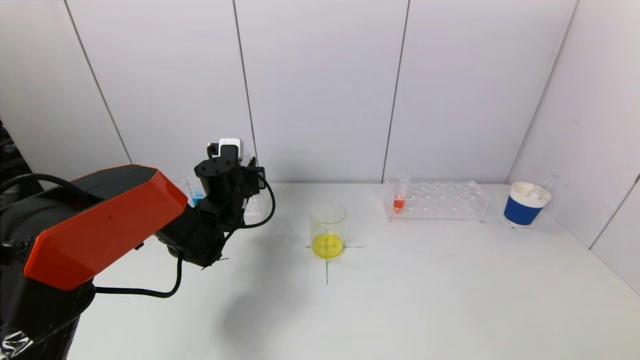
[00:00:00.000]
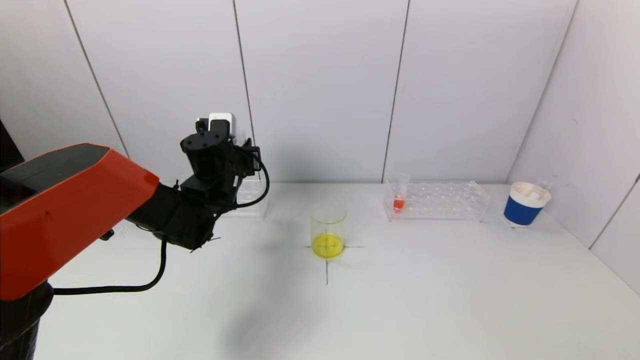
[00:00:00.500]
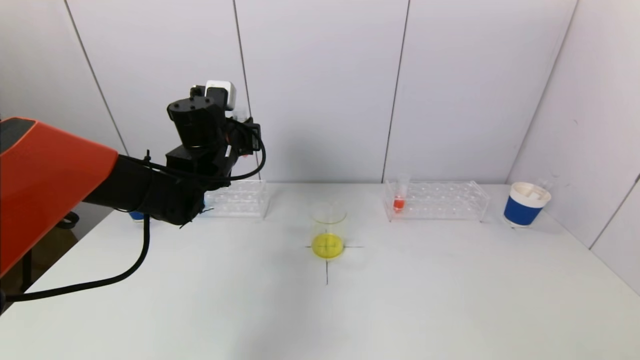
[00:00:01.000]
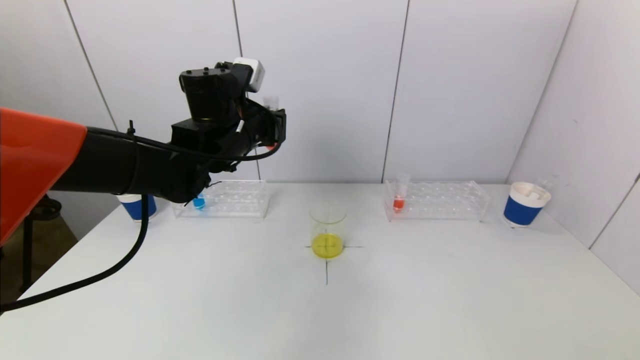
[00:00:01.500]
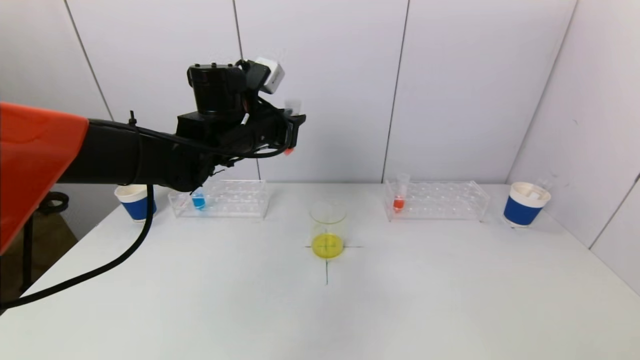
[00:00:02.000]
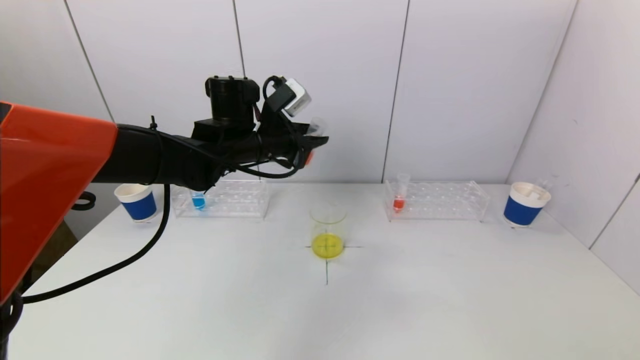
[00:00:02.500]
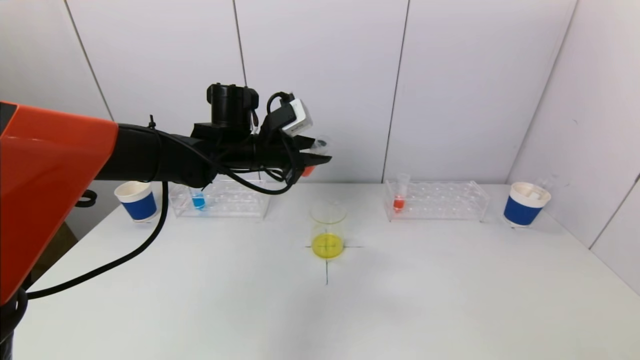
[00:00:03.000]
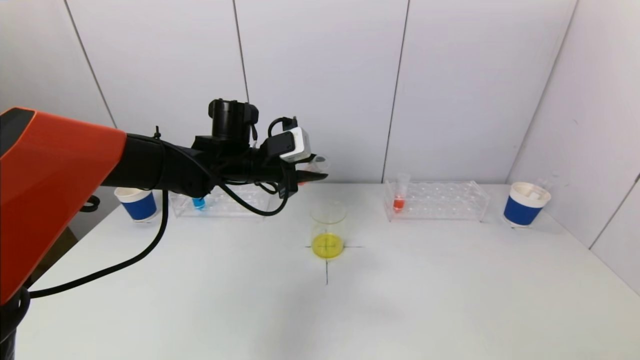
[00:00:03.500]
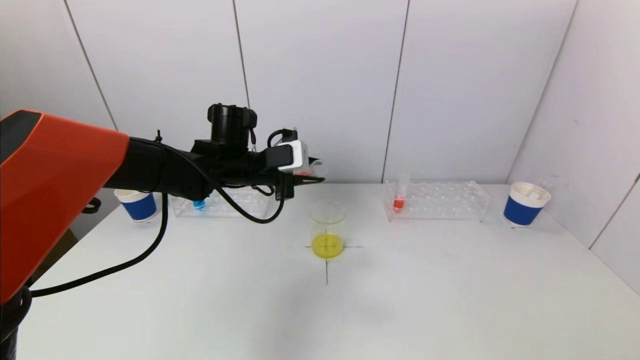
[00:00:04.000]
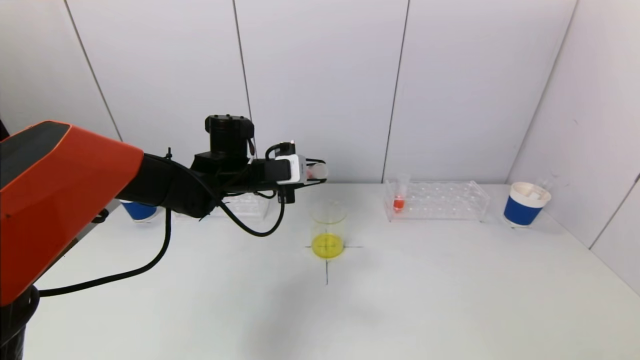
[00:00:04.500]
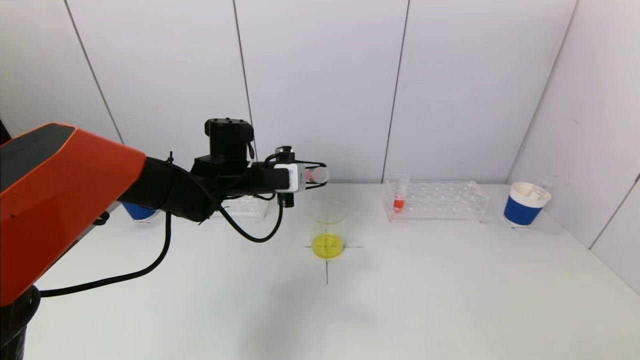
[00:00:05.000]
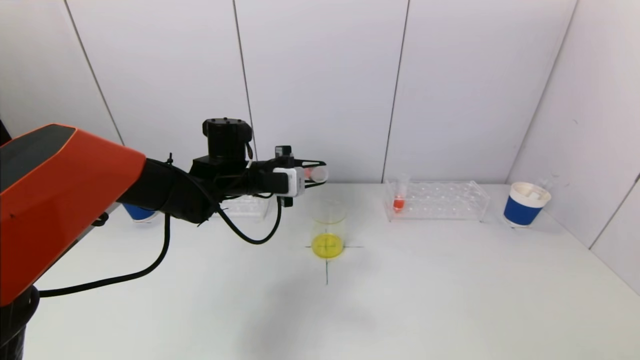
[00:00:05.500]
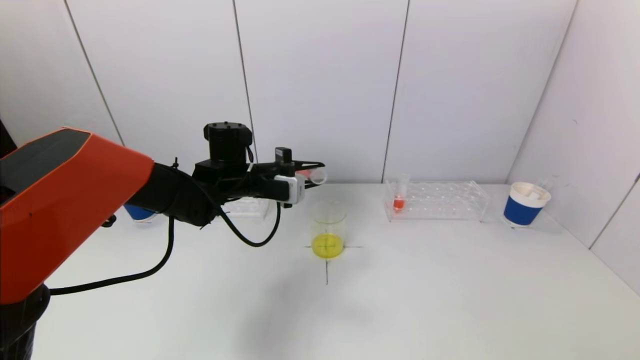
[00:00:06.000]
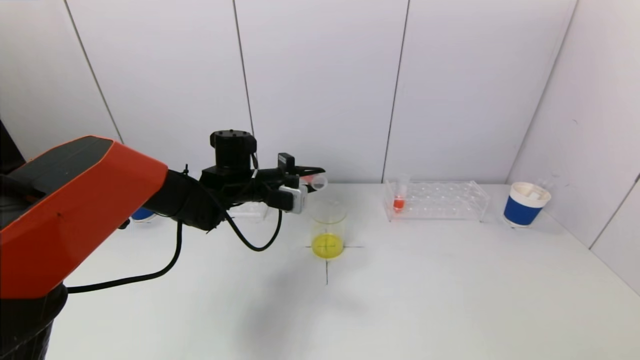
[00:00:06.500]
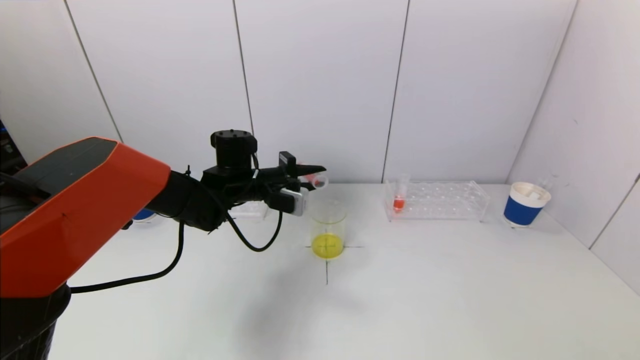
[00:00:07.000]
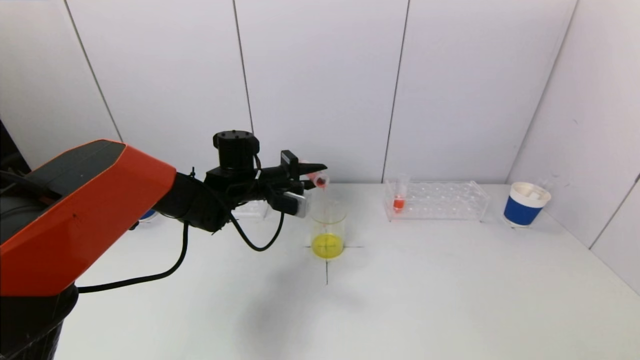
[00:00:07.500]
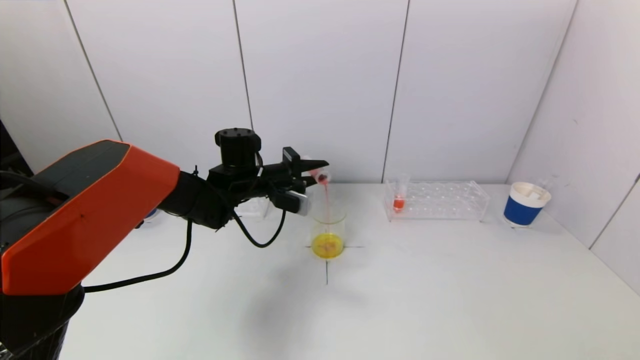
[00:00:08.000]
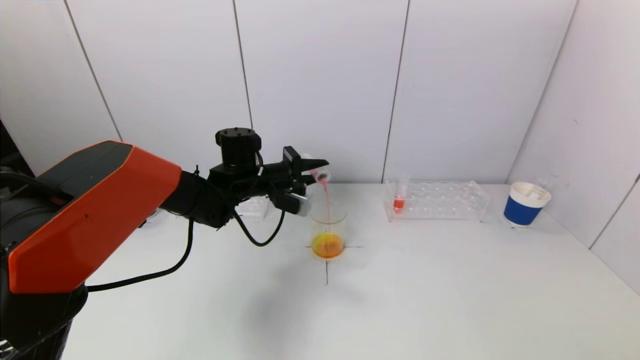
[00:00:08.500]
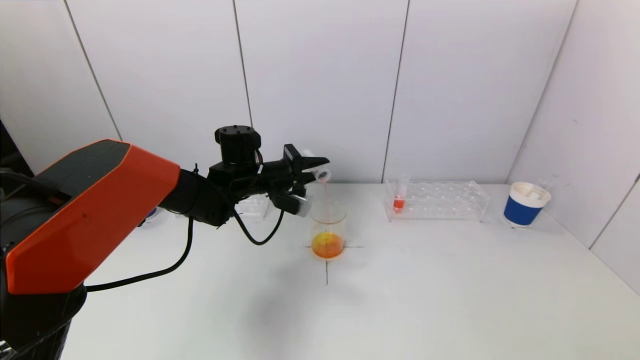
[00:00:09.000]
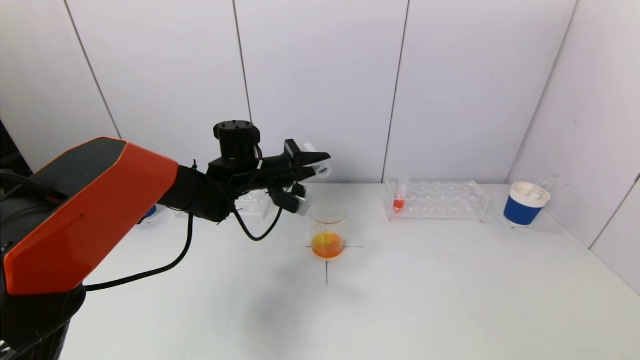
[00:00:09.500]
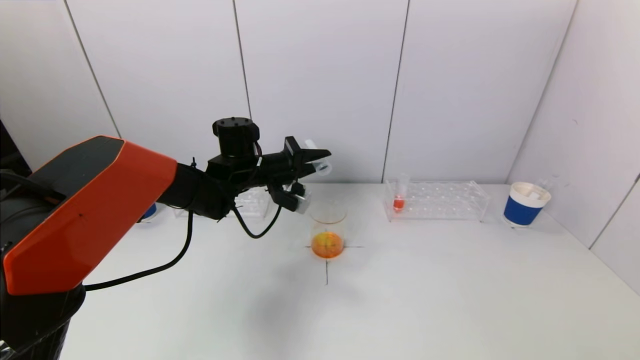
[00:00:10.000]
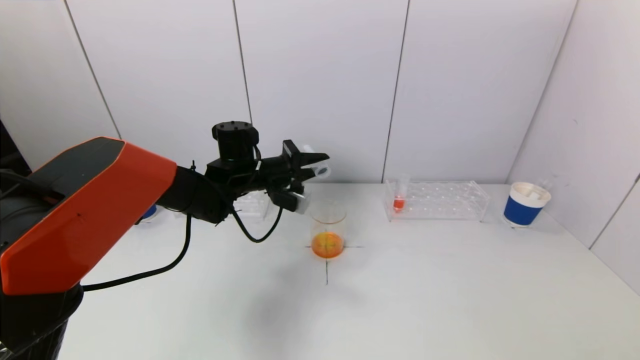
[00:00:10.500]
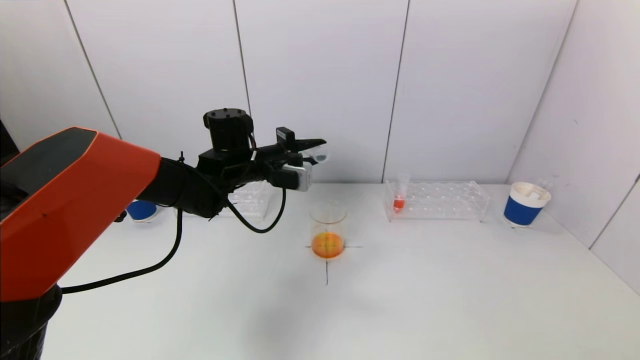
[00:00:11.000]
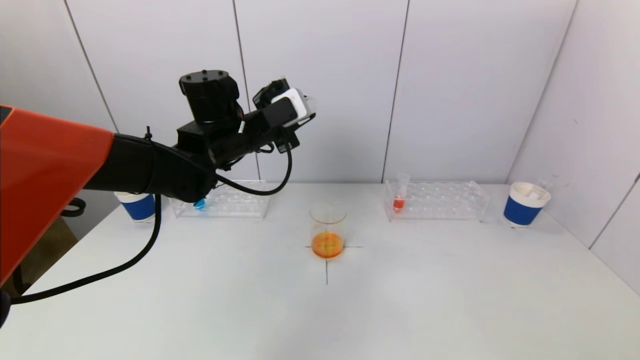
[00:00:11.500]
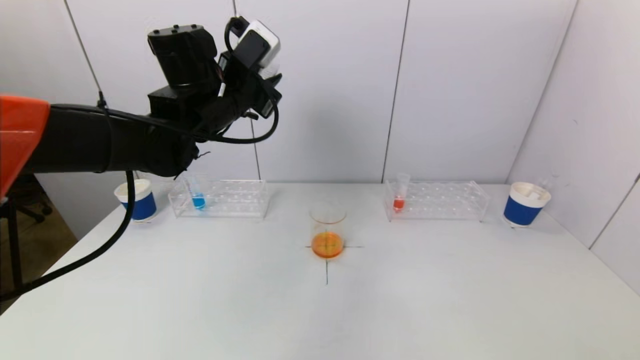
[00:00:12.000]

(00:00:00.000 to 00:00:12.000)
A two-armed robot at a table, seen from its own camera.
Task of the whole recording: pick up a test tube with pigment on left test tube rack and a test tube with pigment on right test tube rack by grippers and pour them into the beaker.
Step, 00:00:00.000 - 00:00:10.000: Pour the red reagent into the graduated cylinder with the left gripper.
00:00:00.000 - 00:00:02.000: The left gripper is displaced upward by some 15 cm.
00:00:02.000 - 00:00:04.000: The left gripper moves downward, approximately 5 cm.
00:00:06.000 - 00:00:08.000: The grippers make only small movements.
00:00:08.000 - 00:00:10.000: There are only small adjustments of the grippers.
00:00:10.000 - 00:00:12.000: The left gripper heads upward, covering roughly 15 cm.

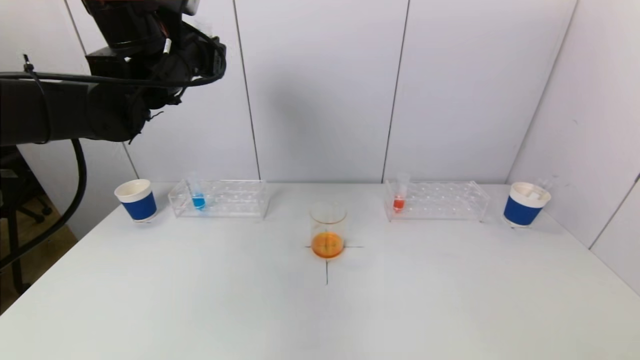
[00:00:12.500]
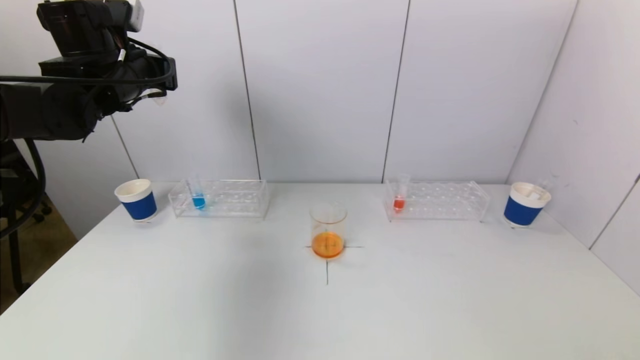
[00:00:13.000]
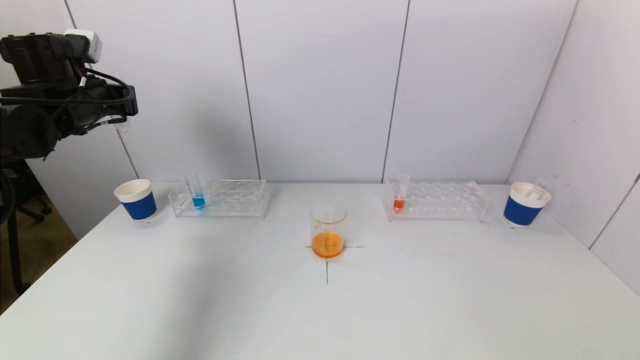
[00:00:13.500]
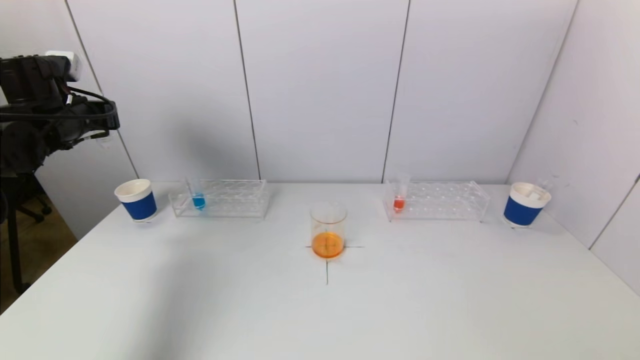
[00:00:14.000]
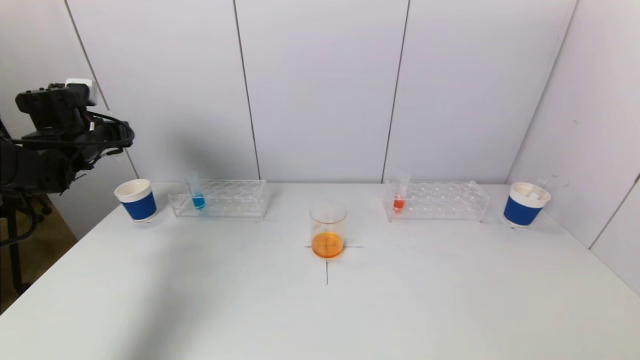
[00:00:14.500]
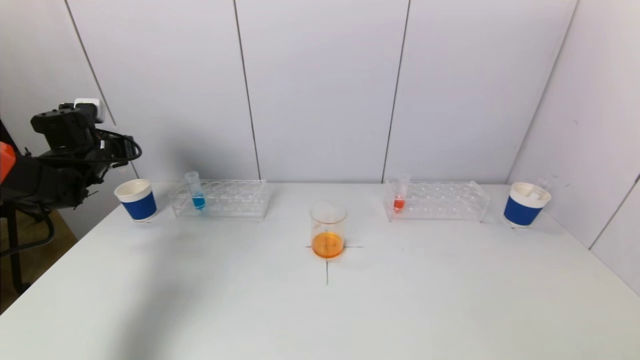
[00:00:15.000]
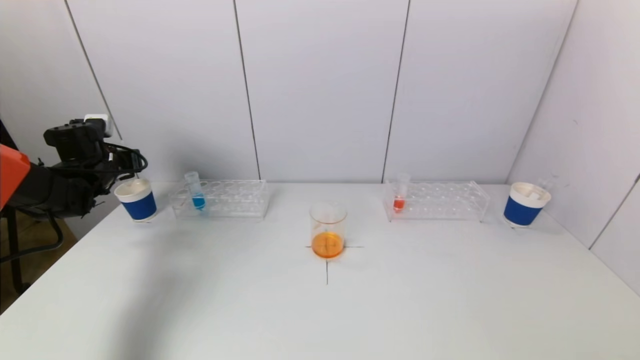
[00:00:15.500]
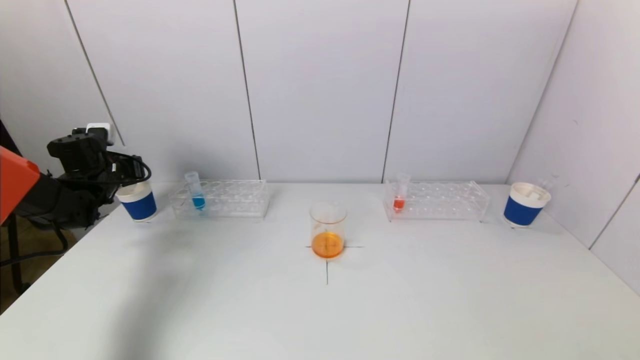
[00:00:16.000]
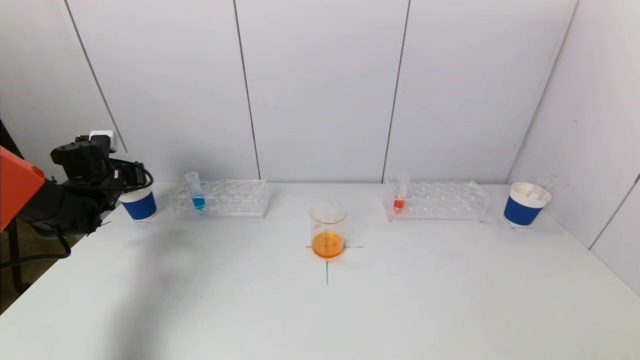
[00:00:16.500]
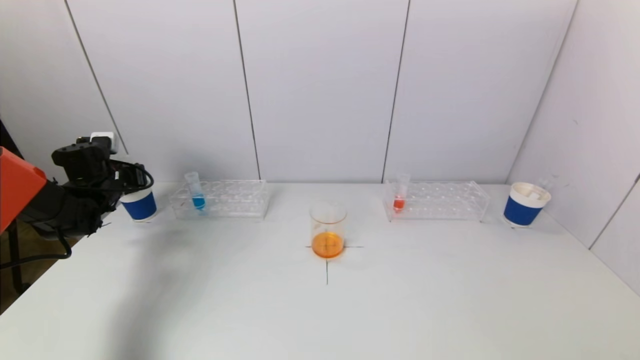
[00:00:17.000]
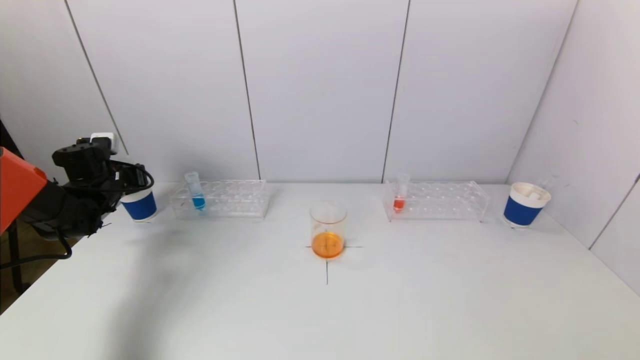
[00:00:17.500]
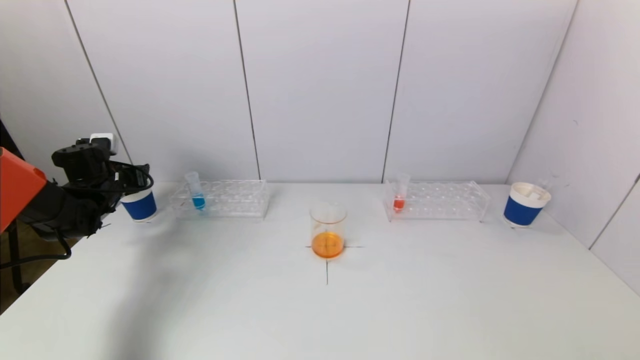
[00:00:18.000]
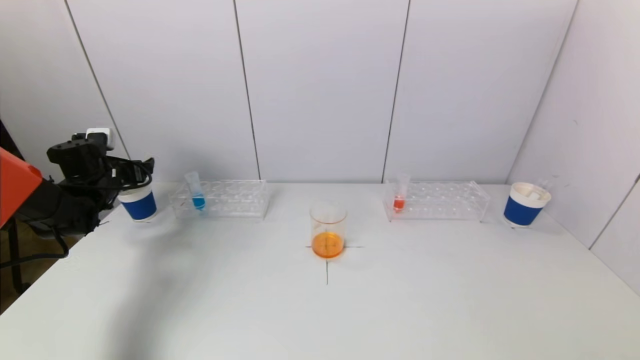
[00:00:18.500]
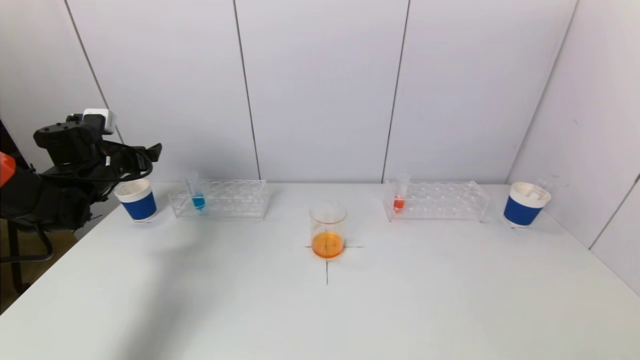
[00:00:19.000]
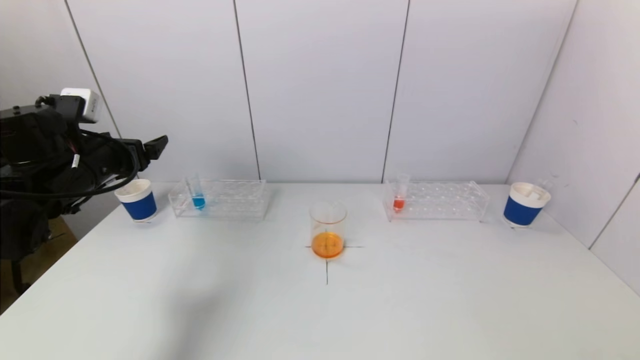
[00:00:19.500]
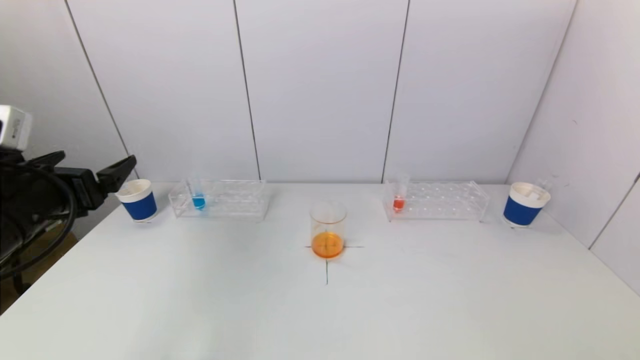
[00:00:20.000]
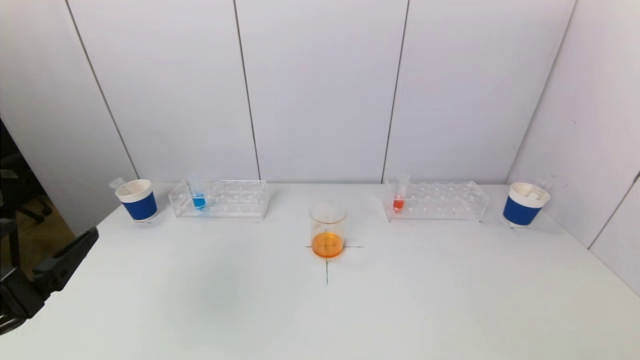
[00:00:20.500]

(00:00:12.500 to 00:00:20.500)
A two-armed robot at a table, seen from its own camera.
Task of the whole recording: pick up a test tube with pigment on left test tube rack and a test tube with pigment on right test tube rack by grippers and pour them into the beaker.
Step, 00:00:12.500 - 00:00:18.000: Place the test tube into the paper cup with the left gripper.
00:00:12.500 - 00:00:14.500: The left gripper heads to the left and downward, covering some 25 cm.
00:00:14.500 - 00:00:16.500: The left gripper goes roughly 10 cm downward.
00:00:16.500 - 00:00:18.500: The left gripper opens.
00:00:18.500 - 00:00:20.500: The left gripper shifts approximately 35 cm backward.
